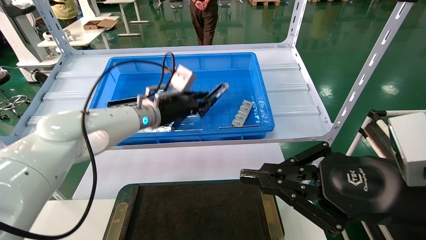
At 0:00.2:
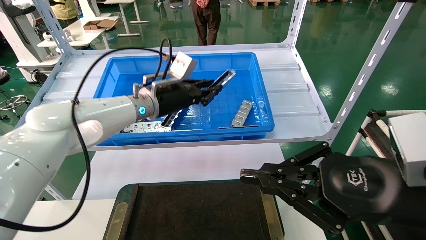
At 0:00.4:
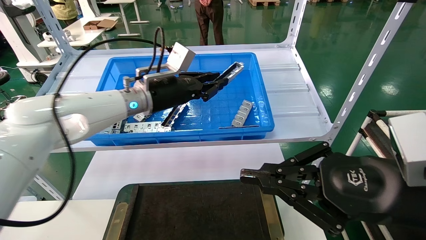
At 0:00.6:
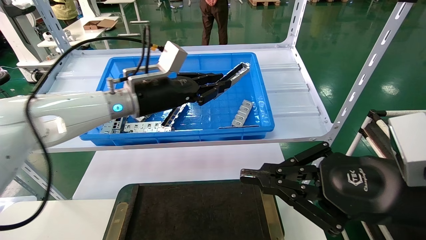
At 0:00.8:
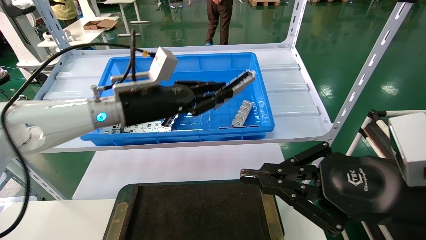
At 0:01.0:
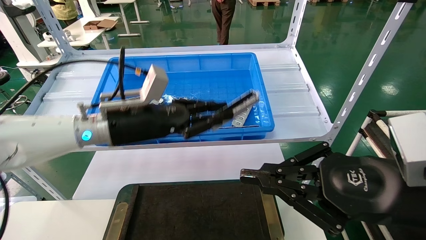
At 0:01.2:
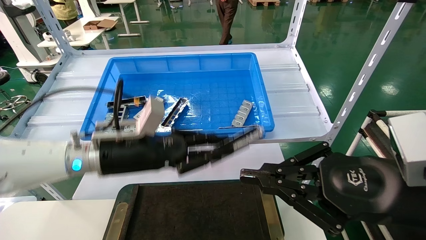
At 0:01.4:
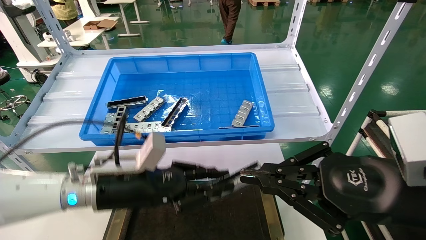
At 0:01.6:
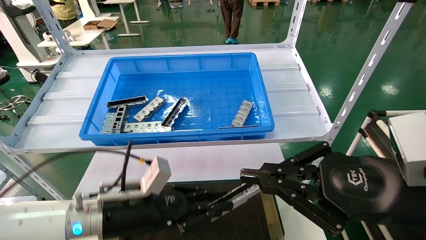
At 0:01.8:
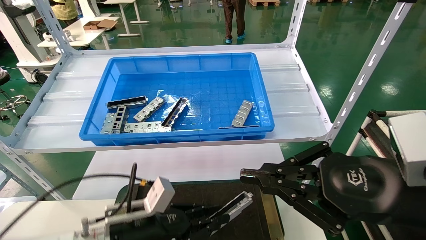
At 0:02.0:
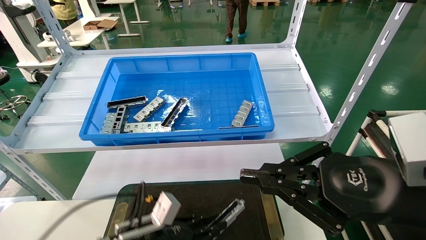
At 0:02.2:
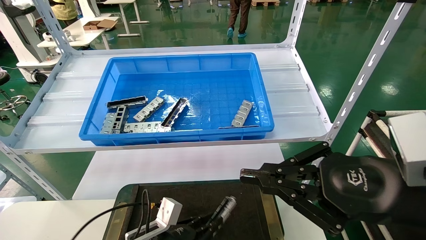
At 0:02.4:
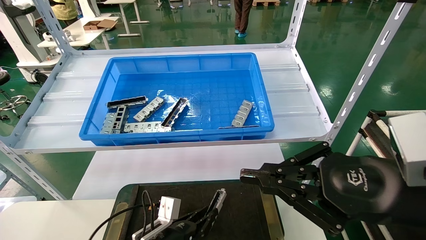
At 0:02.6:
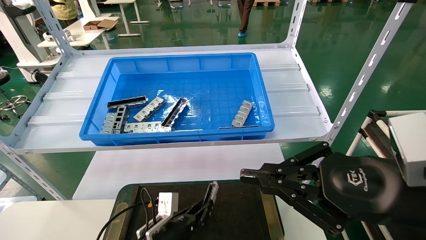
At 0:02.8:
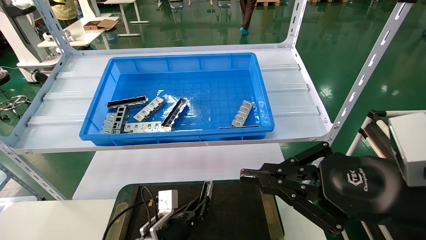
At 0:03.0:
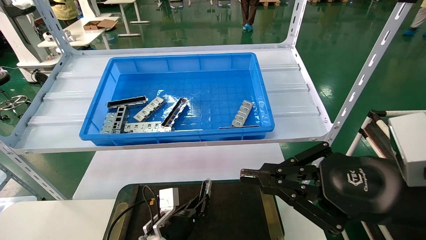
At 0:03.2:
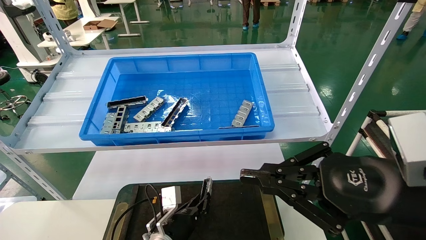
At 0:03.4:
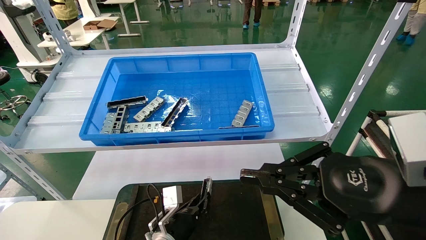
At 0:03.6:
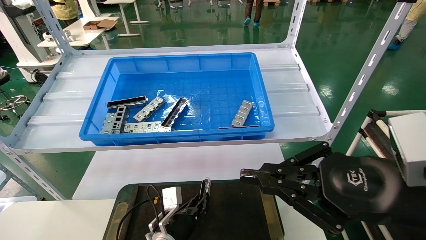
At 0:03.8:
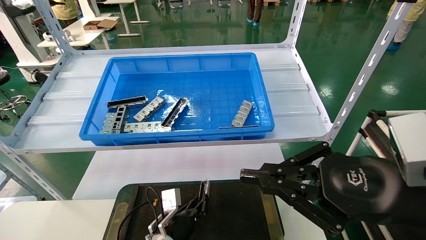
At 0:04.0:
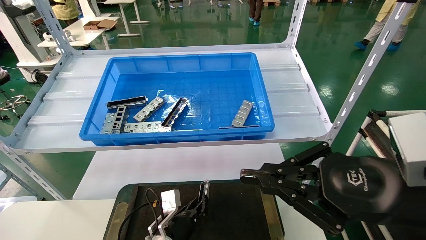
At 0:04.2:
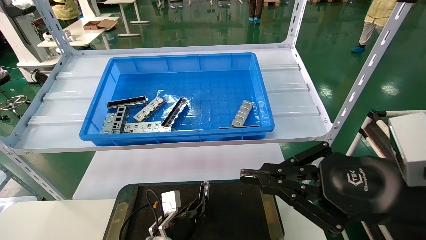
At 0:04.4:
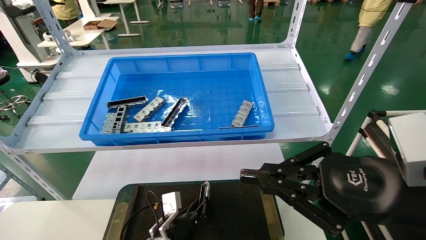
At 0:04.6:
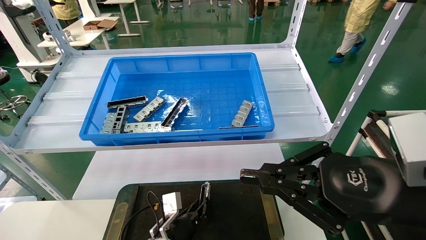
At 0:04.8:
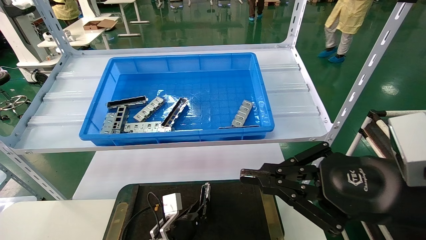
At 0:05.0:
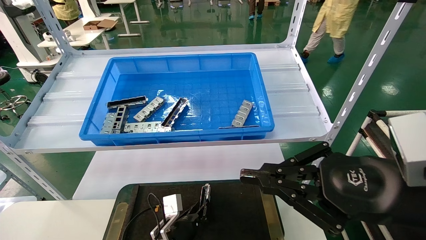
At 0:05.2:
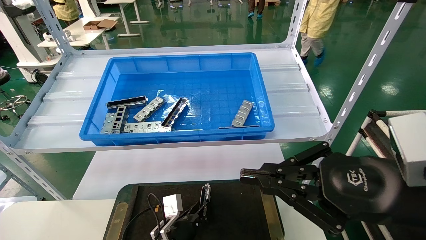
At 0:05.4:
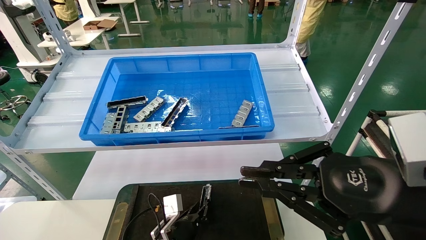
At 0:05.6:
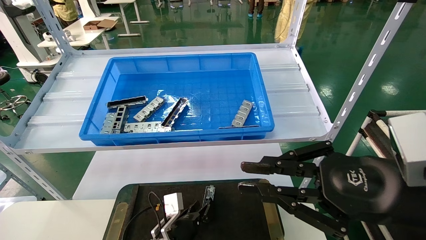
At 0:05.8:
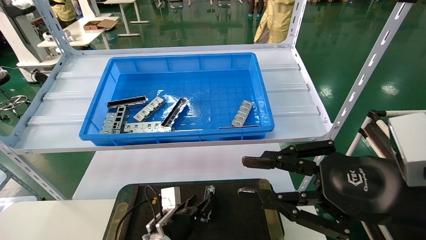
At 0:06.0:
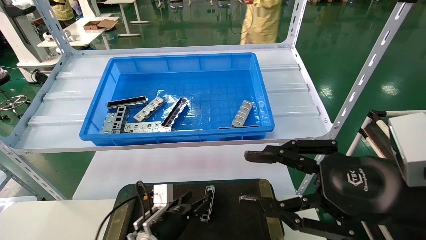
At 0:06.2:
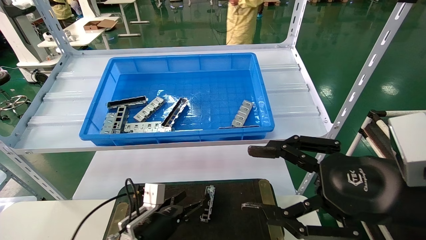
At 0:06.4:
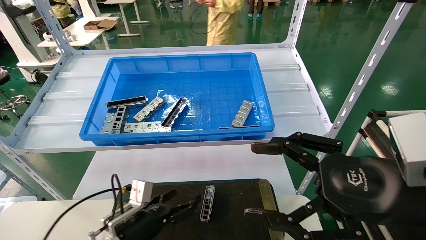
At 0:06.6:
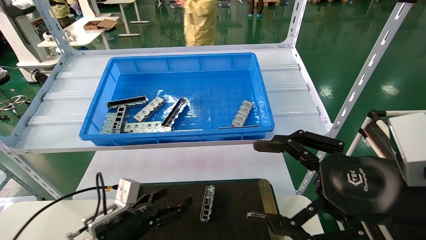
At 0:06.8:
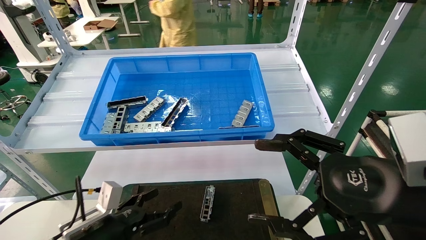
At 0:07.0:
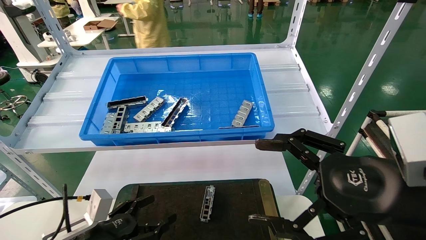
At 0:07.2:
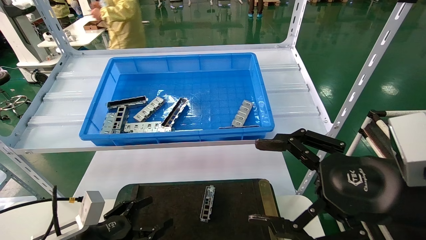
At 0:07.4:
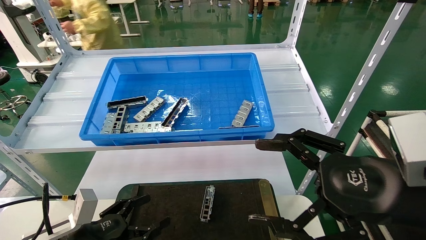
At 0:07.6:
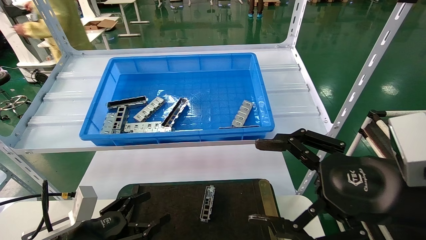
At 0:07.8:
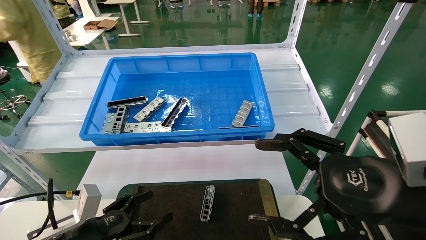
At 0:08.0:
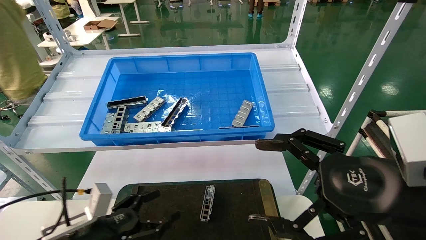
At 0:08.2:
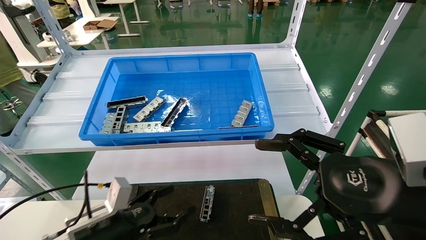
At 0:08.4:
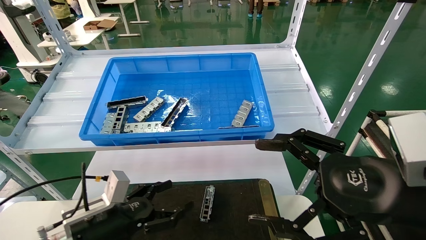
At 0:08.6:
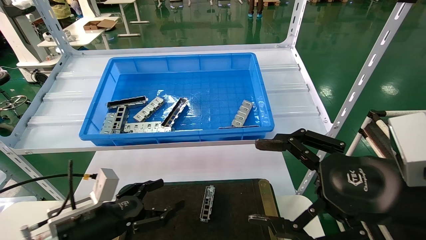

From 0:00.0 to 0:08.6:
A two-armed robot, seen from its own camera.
Task of the whole recording: Grasp the part with one hand and place it on the black container.
Step, from 0:00.6 to 0:05.8: Place the front USB bracket into the box.
From 0:00.0 to 0:01.4: The left gripper goes approximately 20 cm backward and downward.
From 0:01.4 to 0:02.8: The left gripper heads downward, covering approximately 20 cm.
From 0:02.8 to 0:05.8: There are only small adjustments of the grippers.
From 0:05.8 to 0:07.2: The left gripper heads to the left, backward and upward, covering about 20 cm, and opens its fingers, while the right gripper opens its fingers.
From 0:07.2 to 0:08.6: The grippers make only small movements.

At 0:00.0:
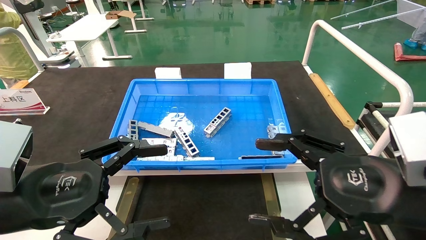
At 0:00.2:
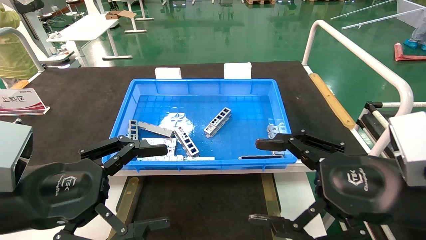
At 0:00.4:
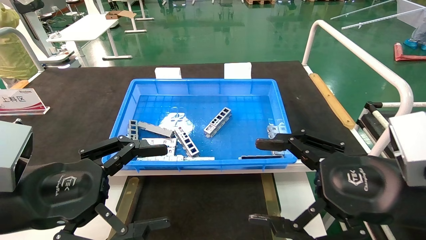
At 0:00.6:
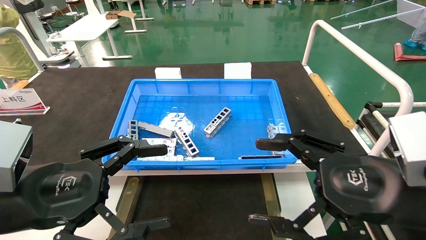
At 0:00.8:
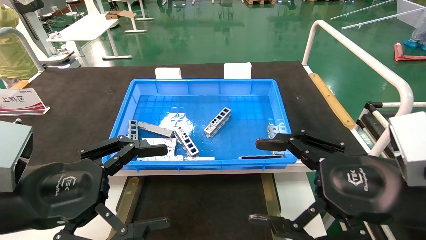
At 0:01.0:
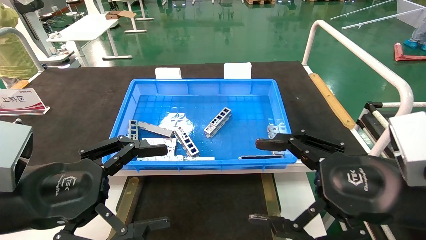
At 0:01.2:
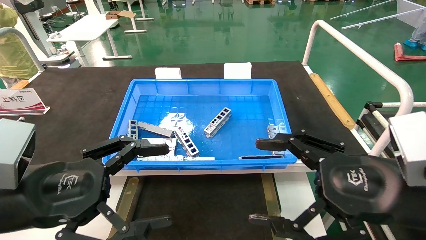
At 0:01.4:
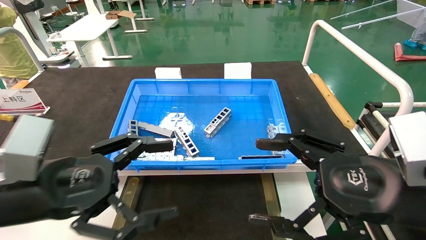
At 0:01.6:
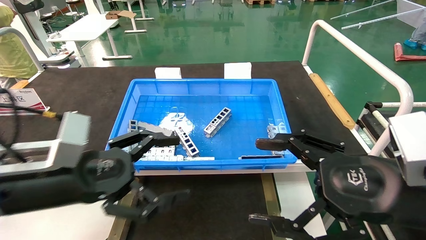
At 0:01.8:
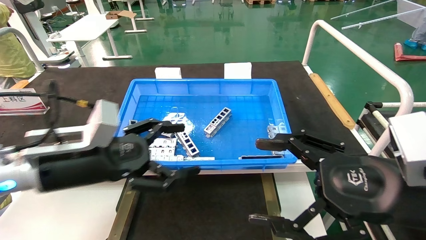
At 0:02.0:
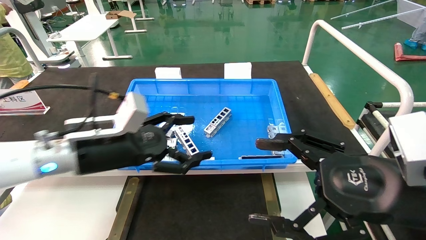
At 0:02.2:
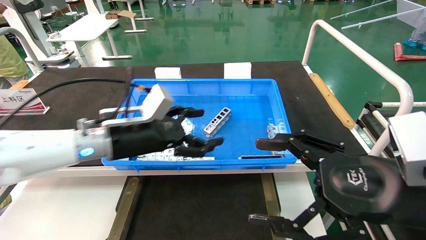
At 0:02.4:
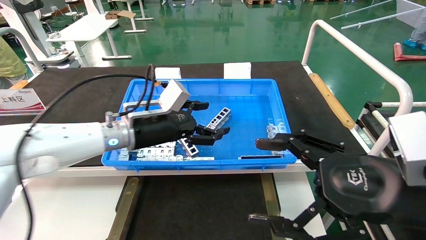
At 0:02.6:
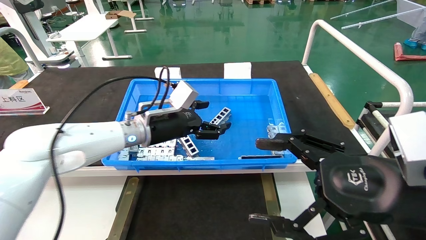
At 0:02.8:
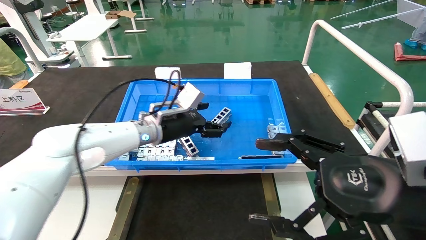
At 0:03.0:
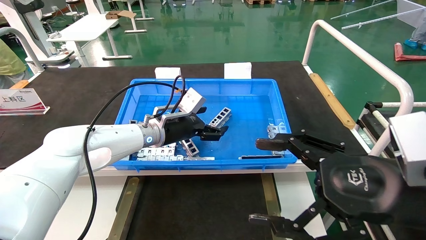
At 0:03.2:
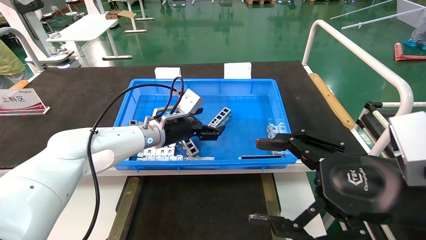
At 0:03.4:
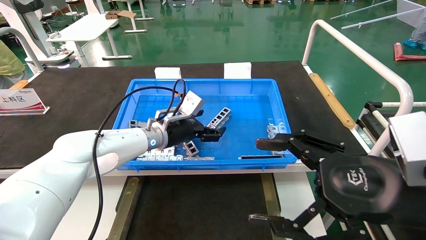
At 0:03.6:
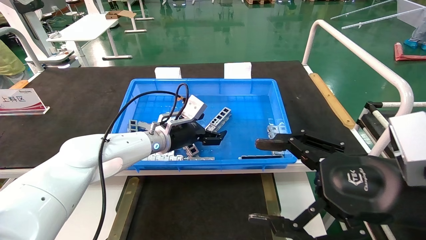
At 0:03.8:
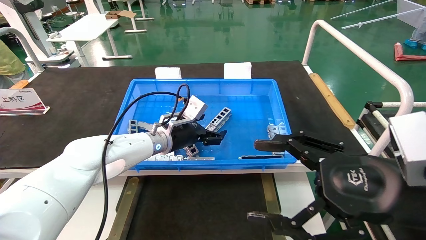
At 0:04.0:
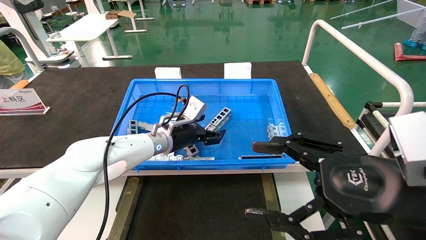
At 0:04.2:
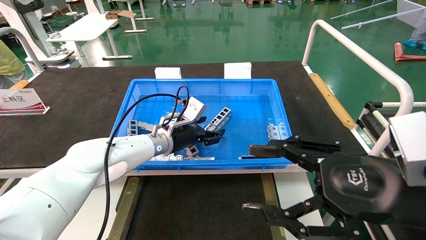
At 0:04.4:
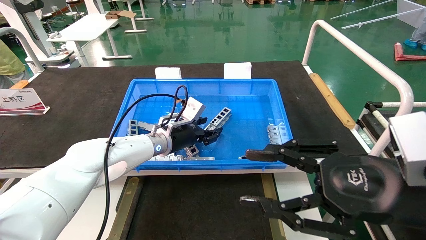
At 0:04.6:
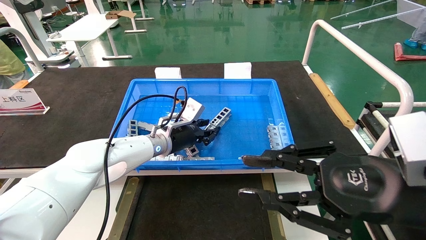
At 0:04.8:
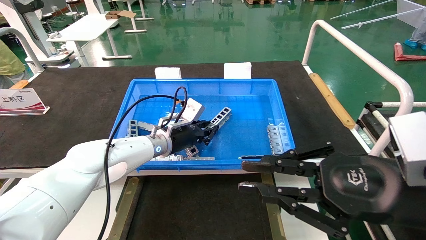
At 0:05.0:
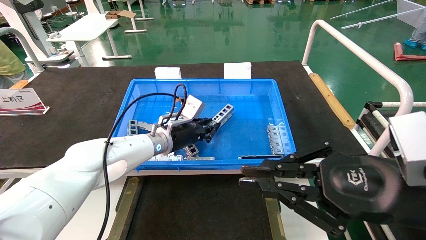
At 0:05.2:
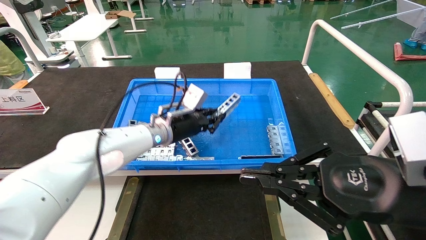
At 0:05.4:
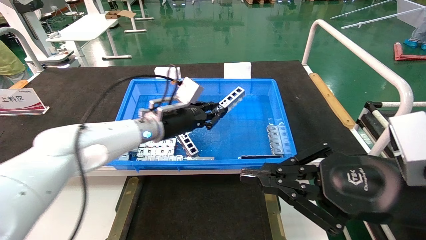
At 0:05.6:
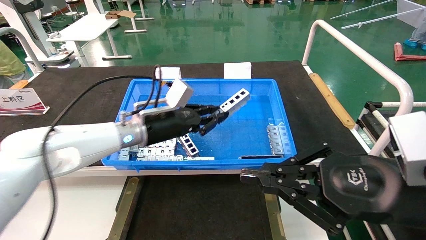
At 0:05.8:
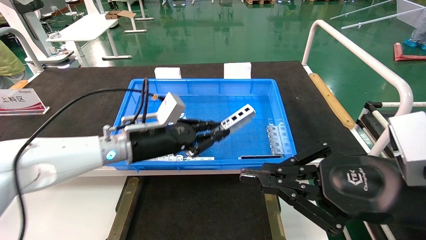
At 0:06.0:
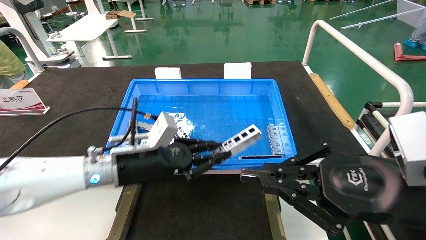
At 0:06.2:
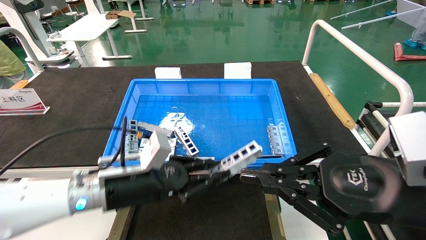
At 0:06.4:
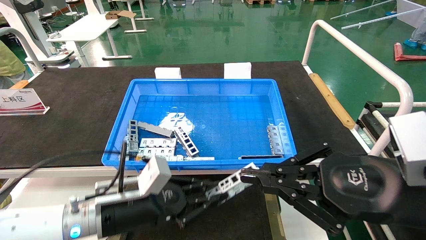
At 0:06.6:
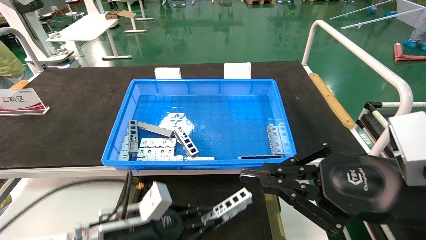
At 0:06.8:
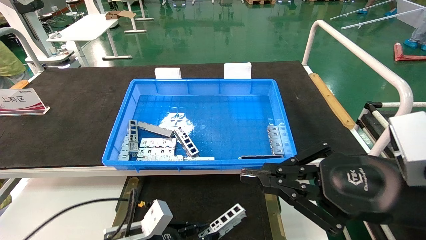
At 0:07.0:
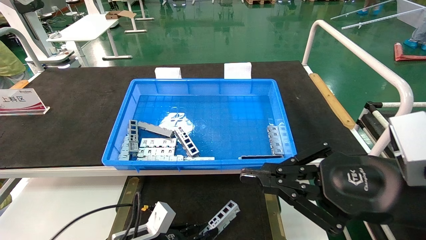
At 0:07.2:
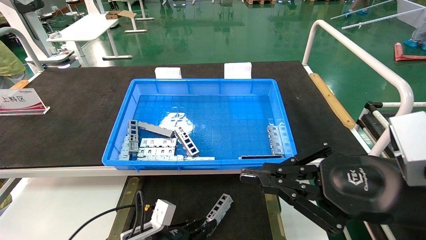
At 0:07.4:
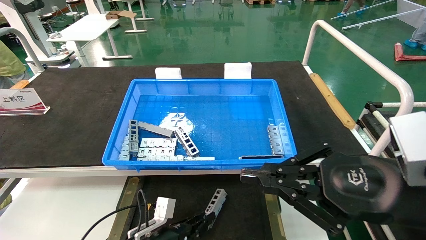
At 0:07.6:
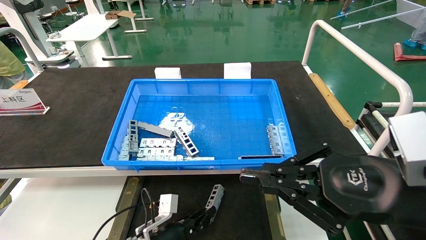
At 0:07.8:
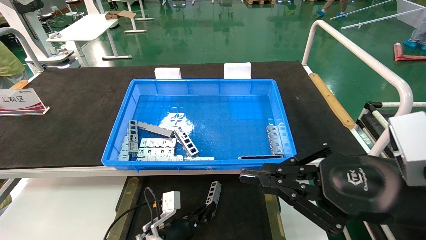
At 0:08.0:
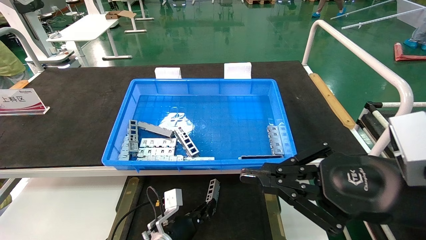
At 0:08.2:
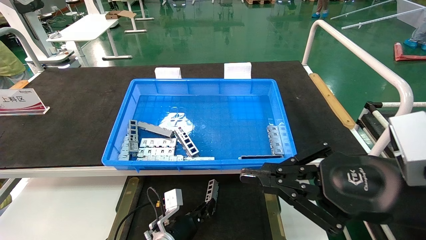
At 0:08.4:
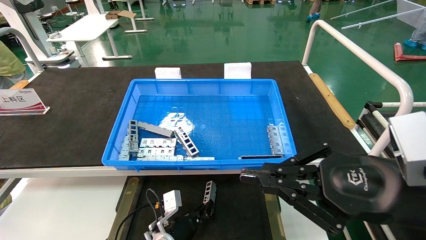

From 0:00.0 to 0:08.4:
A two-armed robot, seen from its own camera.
Task of the whole recording: Grasp the part with one hand and place it on the black container.
Step, from 0:01.6 to 0:04.8: Pick up the front USB bracket from the feeding area.
From 0:00.0 to 0:01.4: The grippers move only a little.
From 0:01.4 to 0:02.8: The left gripper heads forward and to the right, covering about 30 cm.
From 0:02.8 to 0:04.2: The left gripper moves about 5 cm.
From 0:04.2 to 0:05.6: The left gripper moves backward, approximately 5 cm, and closes. Meanwhile the right gripper closes its fingers.
From 0:05.6 to 0:07.0: The left gripper goes about 25 cm downward and backward.
From 0:07.0 to 0:08.4: The left gripper goes approximately 10 cm forward, to the right and downward.
